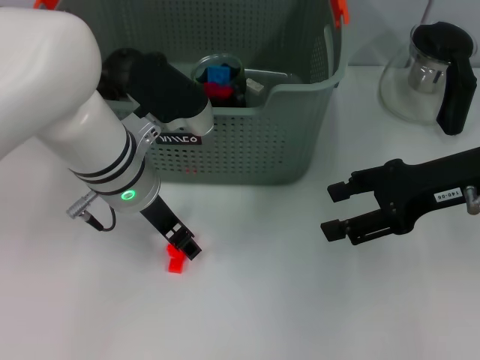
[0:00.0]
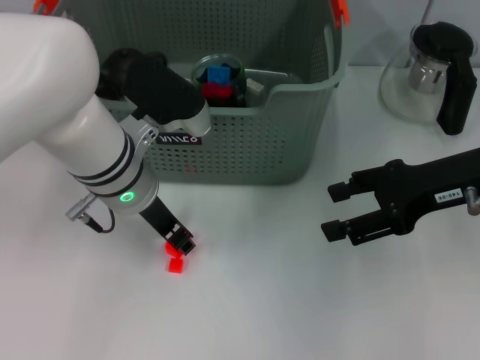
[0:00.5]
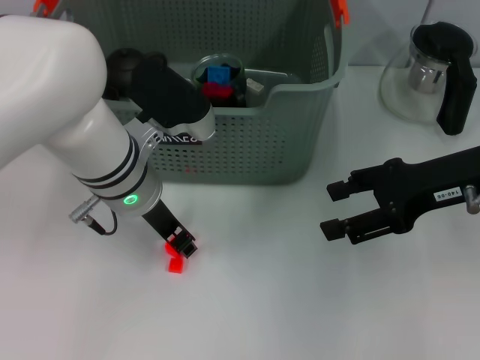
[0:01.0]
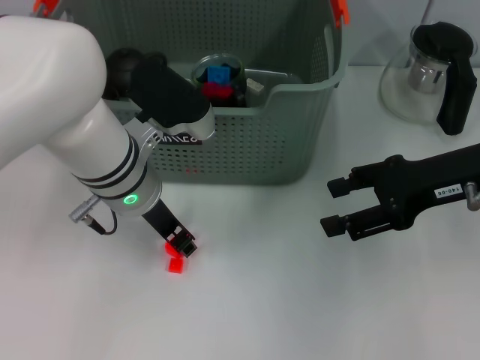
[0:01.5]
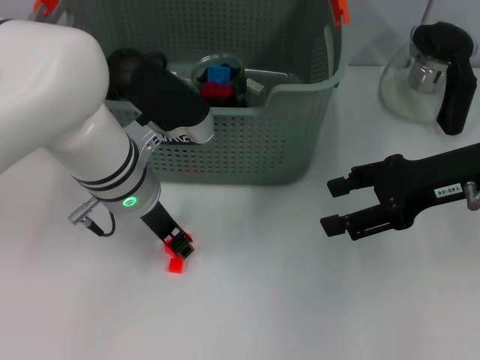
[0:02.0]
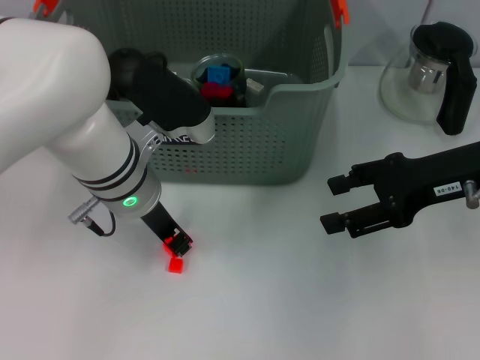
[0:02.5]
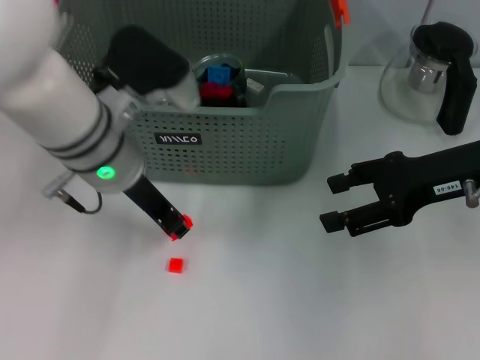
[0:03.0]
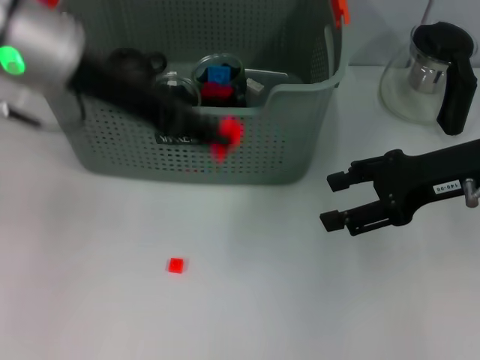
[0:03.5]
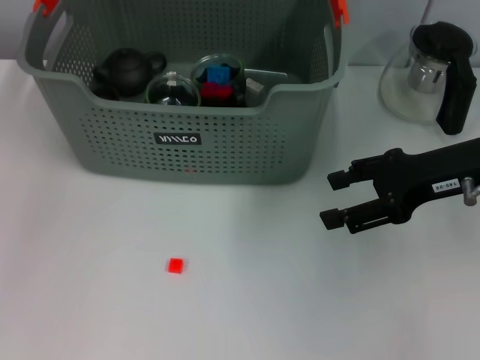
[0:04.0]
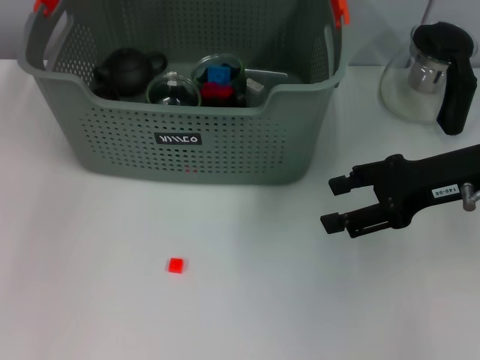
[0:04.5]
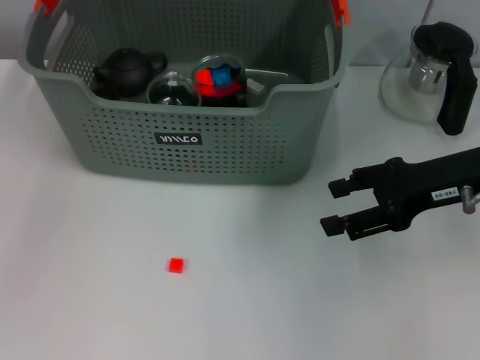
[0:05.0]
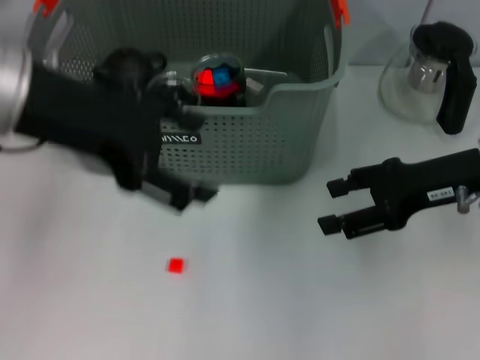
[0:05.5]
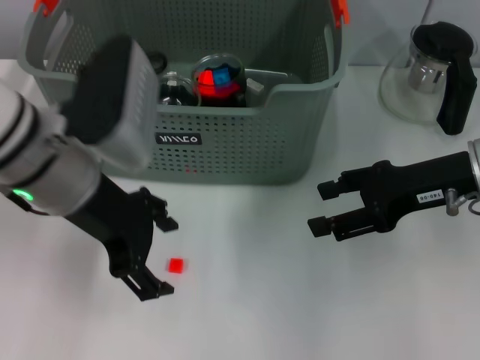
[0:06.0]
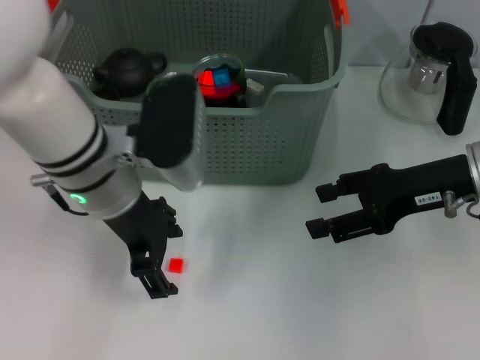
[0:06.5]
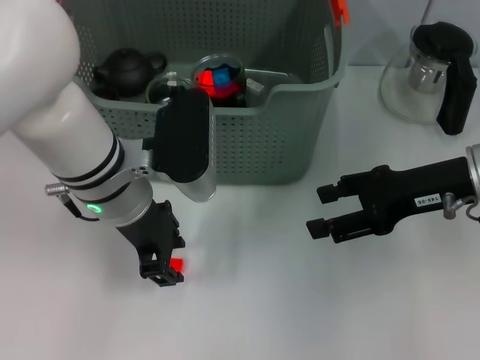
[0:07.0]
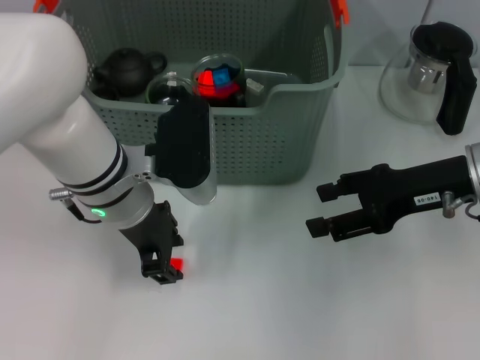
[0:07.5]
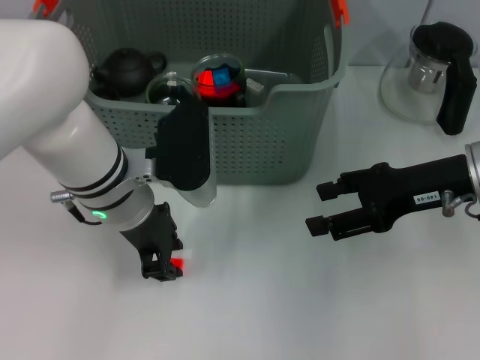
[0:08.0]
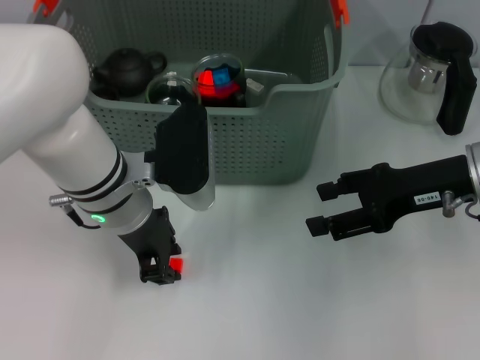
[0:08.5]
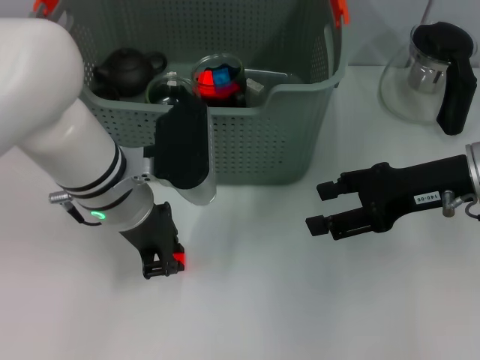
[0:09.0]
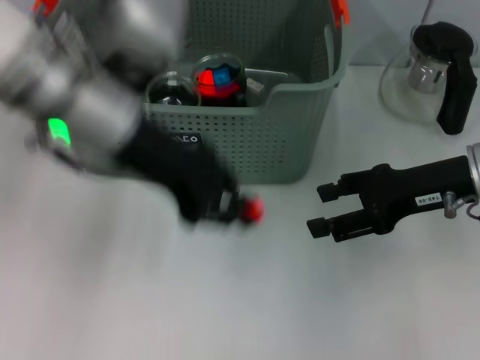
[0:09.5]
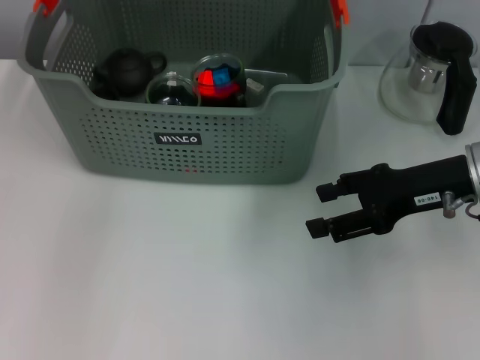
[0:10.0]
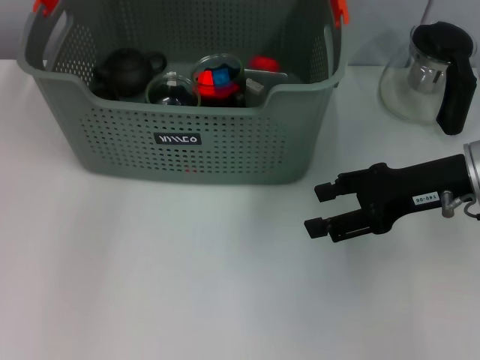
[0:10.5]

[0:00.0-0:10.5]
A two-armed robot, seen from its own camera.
Task of the whole recording: pick up the teacup on the table and place it into the storage bin, pick up the block on the table and place it into the storage bin.
Step, 0:00.0 to 0:02.5: Grasp the orange block with left gripper.
Step, 0:03.0 to 0:04.5: Place the orange block in the storage box with left gripper.
Step, 0:05.0 to 0:08.5: Grasp the orange block with left gripper.
0:00.0 to 0:02.0: The left gripper closes up.
0:02.0 to 0:04.0: The left gripper is displaced upward by some 20 cm.
0:04.0 to 0:06.5: The left gripper moves downward and backward, approximately 20 cm, and opens.
0:06.5 to 0:08.5: The left gripper closes up.
0:08.5 to 0:10.5: The left gripper travels upward and forward by approximately 20 cm.

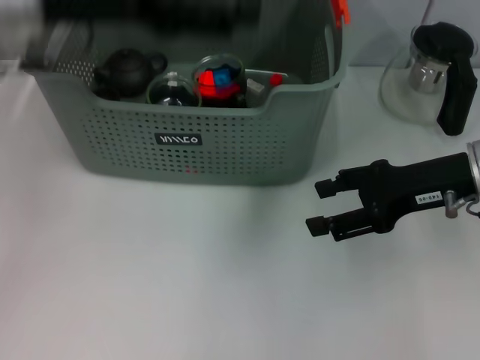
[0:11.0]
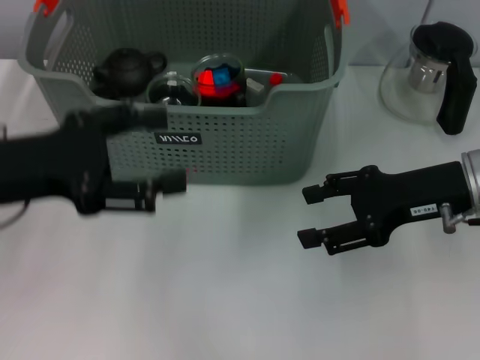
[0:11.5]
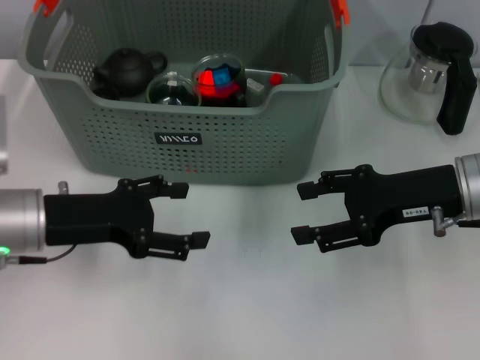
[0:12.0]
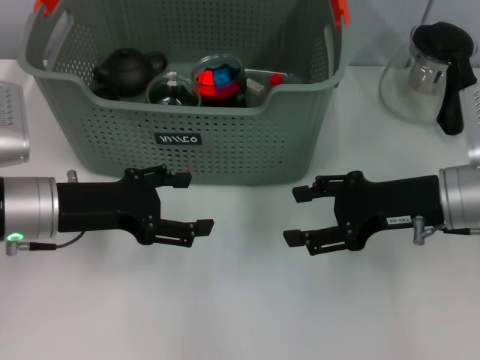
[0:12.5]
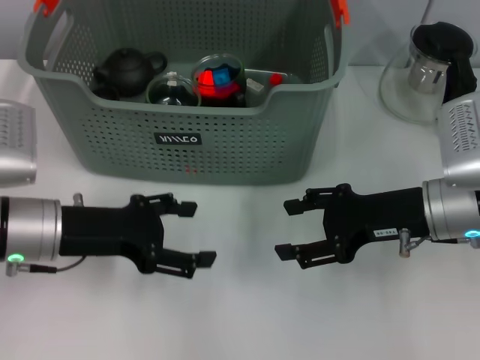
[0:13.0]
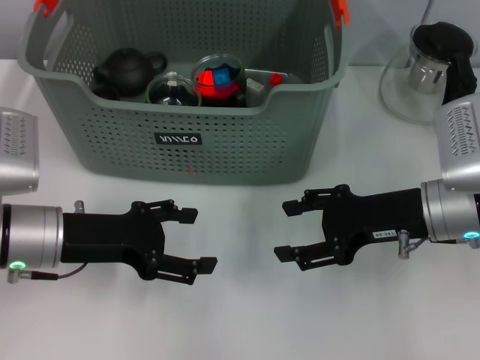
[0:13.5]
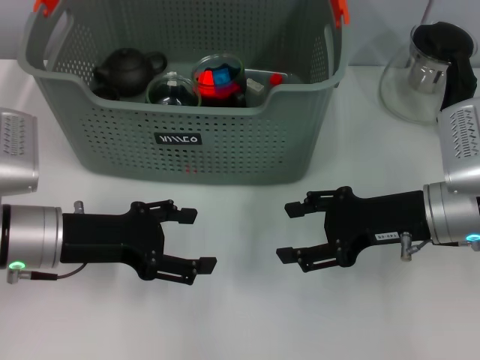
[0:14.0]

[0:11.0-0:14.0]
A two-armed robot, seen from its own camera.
Task of the whole recording: pick up the teacup on the table and place it into the storage bin, pick up the block on the table and place it into the storage bin.
0:11.0 to 0:12.5: The left gripper moves downward, some 15 cm.
0:12.5 to 0:14.0: The grippers make only small movements.
